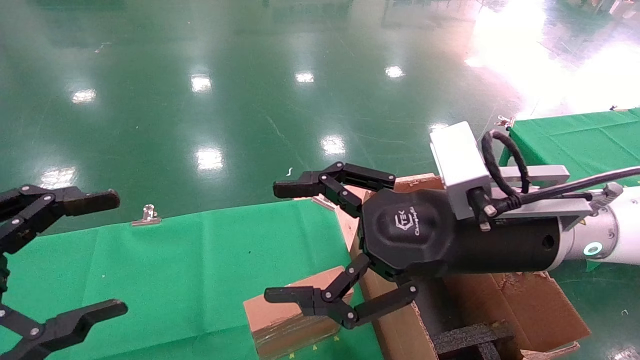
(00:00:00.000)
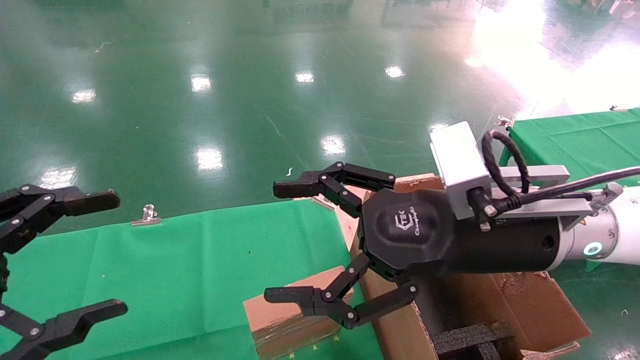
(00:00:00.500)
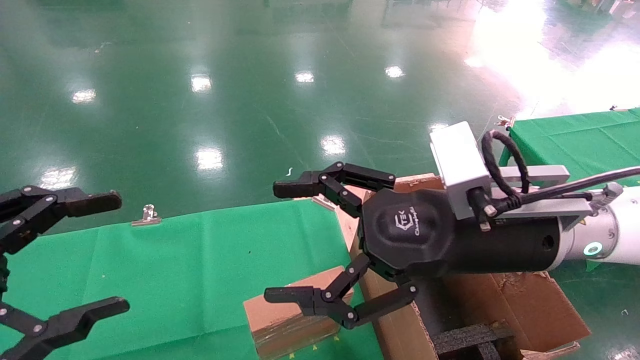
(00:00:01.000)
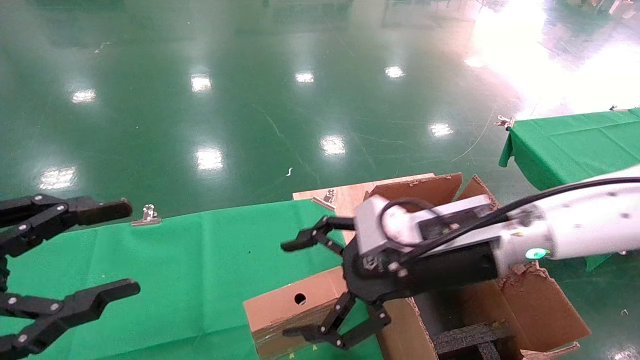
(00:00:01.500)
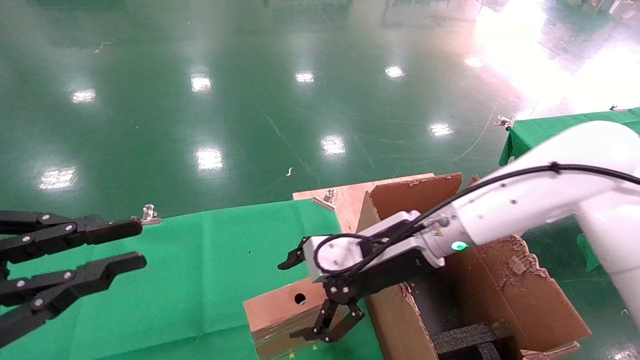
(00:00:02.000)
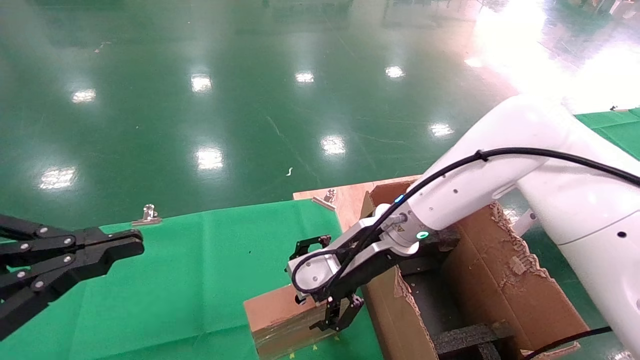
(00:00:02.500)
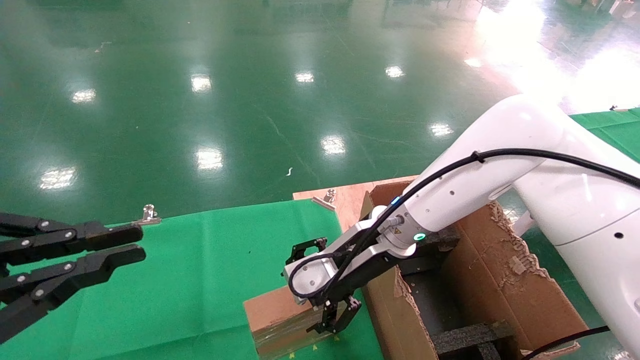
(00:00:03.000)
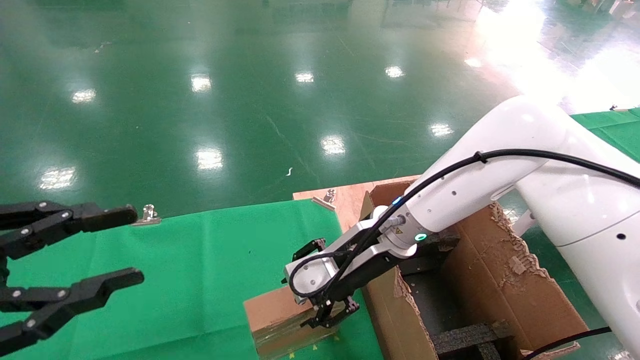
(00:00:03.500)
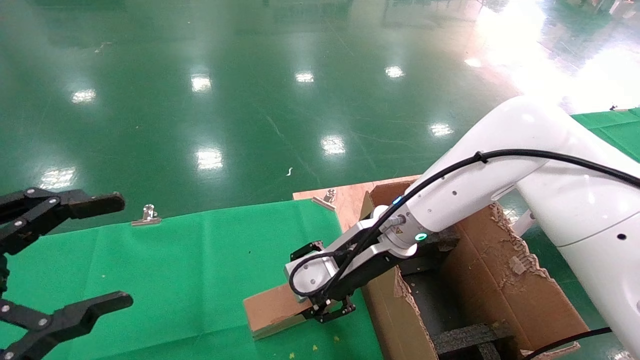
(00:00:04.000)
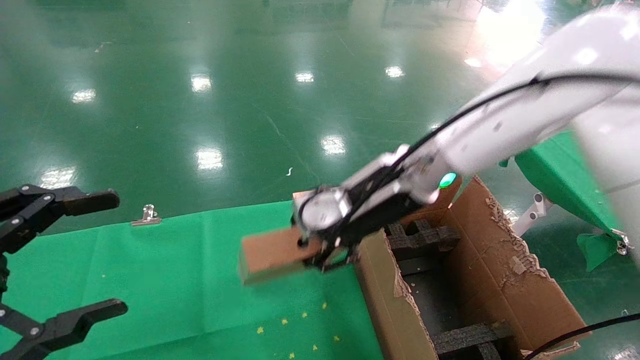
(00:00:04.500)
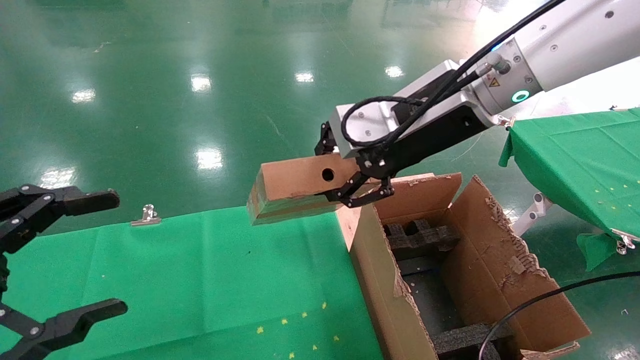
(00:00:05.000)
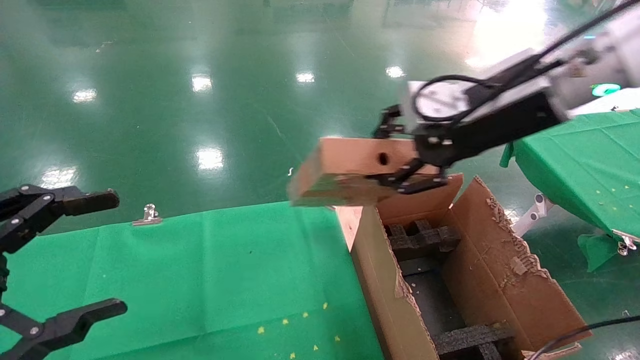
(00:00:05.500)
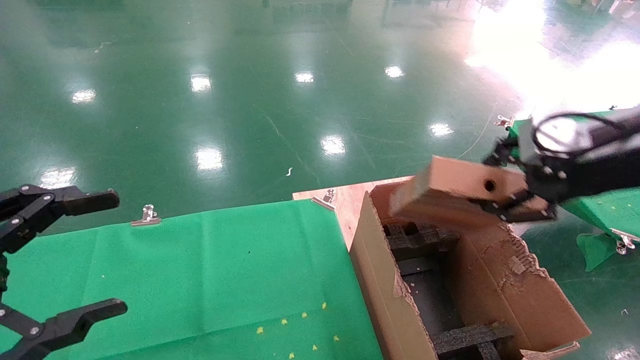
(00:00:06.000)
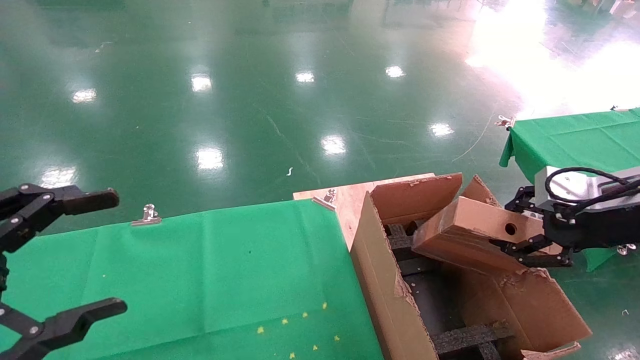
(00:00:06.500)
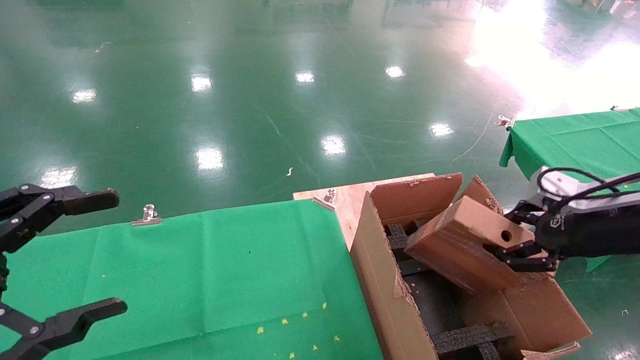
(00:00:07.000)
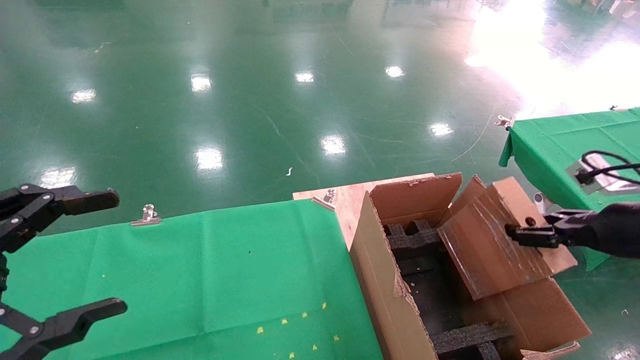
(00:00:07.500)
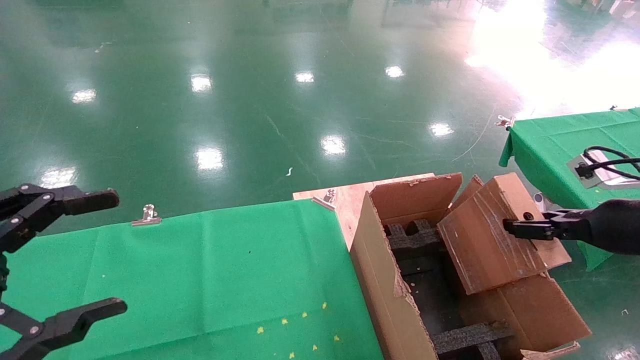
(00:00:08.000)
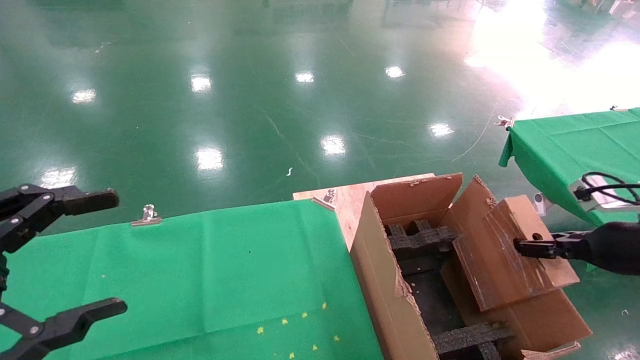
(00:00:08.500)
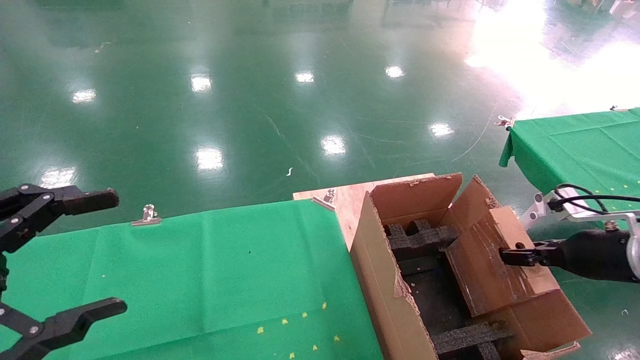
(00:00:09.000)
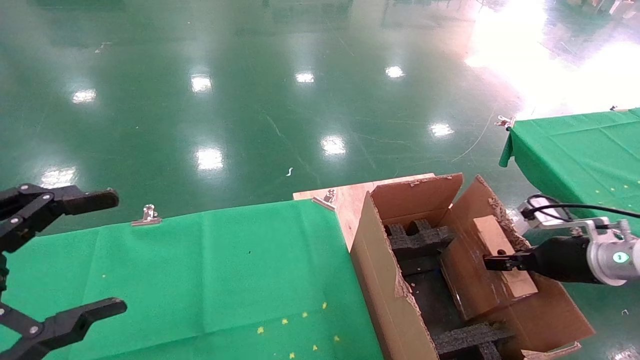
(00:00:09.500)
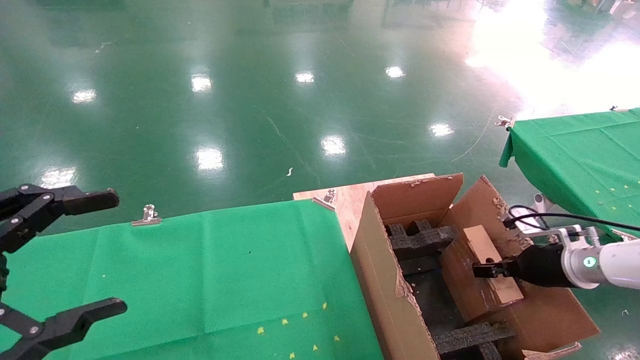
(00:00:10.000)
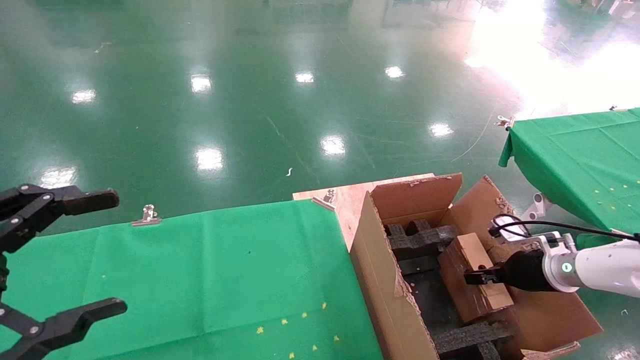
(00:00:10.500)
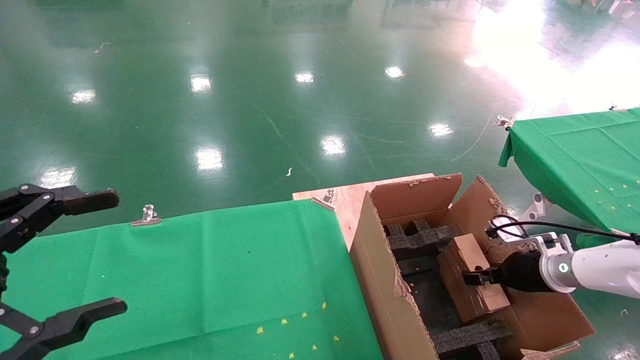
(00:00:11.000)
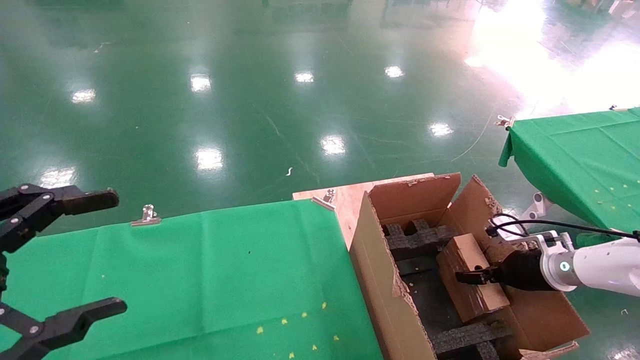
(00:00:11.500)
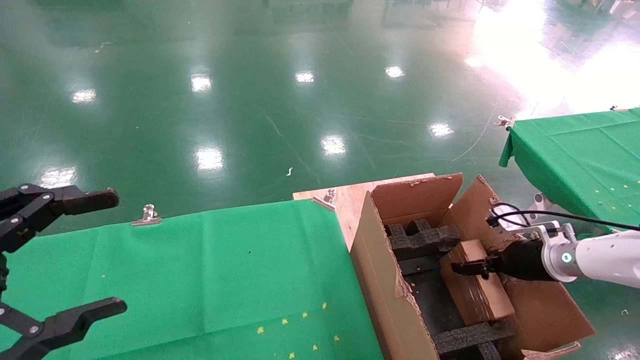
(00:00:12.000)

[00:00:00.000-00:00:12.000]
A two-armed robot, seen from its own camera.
Task of the whole recording: using a robotic arm to pick up a cardboard box and palace it the carton.
Step, 00:00:01.500 to 00:00:03.500: Pick up the mouse and the power cord paper box.
00:00:00.000 to 00:00:02.000: The right gripper heads forward and downward, covering roughly 10 cm, while the left gripper closes.
00:00:02.000 to 00:00:04.000: The left gripper opens. Meanwhile the right gripper closes up.
00:00:04.000 to 00:00:06.000: The right gripper heads to the right, upward and backward, covering approximately 30 cm.
00:00:06.000 to 00:00:08.000: The right gripper travels downward and to the right by roughly 15 cm.
00:00:08.000 to 00:00:10.000: The right gripper is displaced downward and forward by about 15 cm.
00:00:10.000 to 00:00:12.000: The right gripper opens.

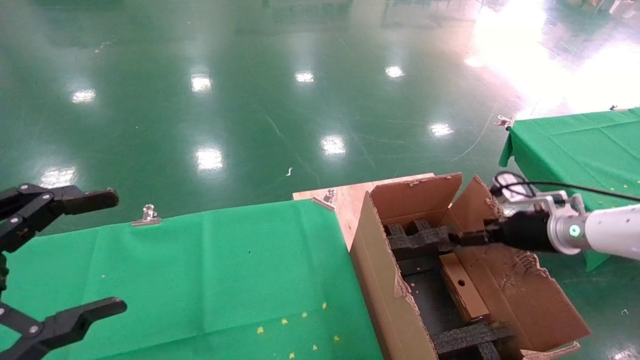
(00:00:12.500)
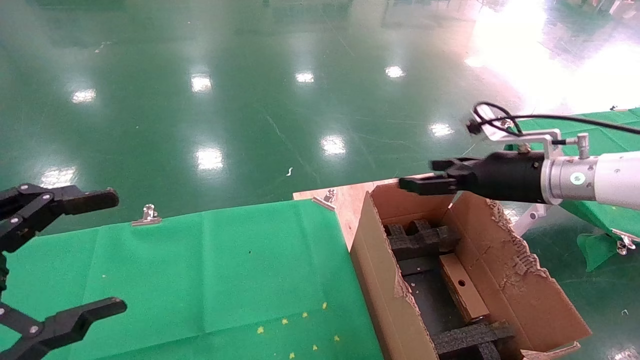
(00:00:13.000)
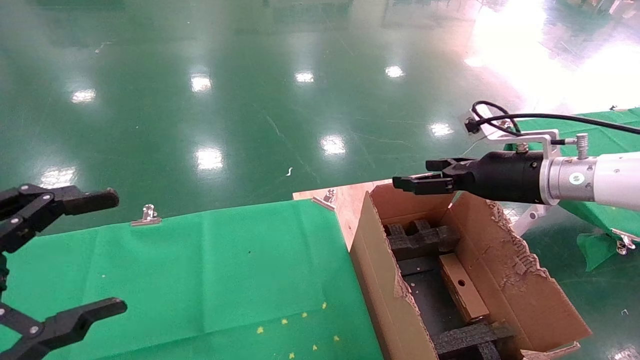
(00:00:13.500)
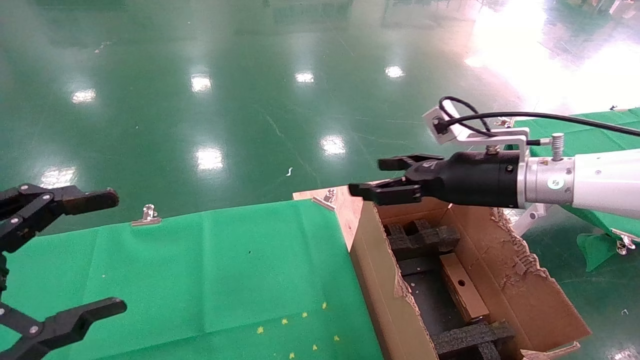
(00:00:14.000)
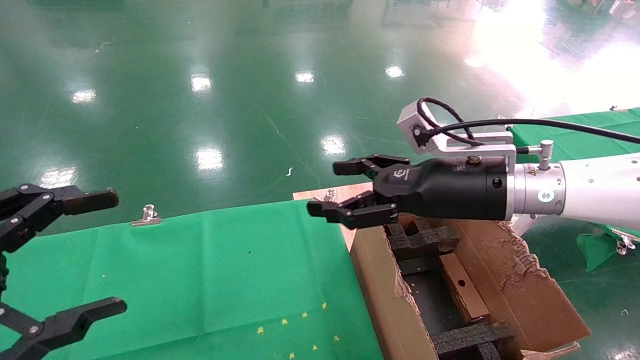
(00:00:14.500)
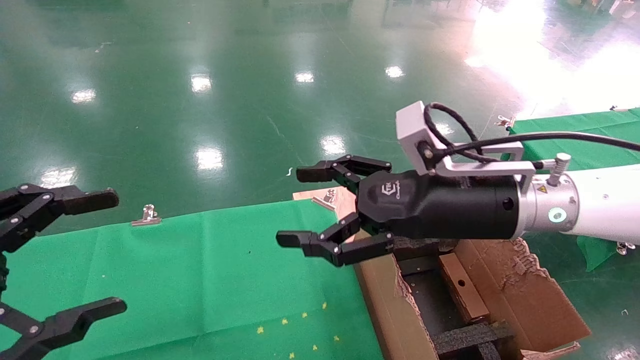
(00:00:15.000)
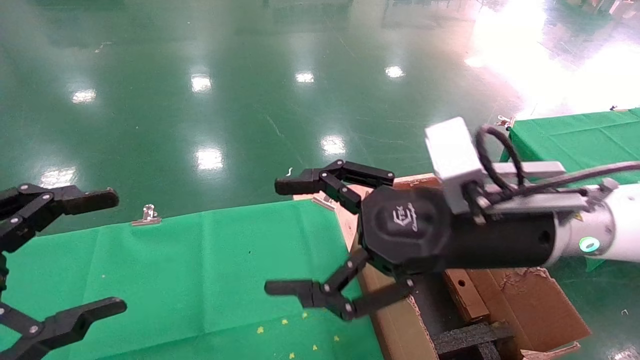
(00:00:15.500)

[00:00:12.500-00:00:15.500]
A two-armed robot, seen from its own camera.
Task of the whole recording: using a robotic arm to pick up a cardboard box and palace it the carton.
00:00:12.500 to 00:00:14.000: The right gripper goes approximately 20 cm to the left and upward.
00:00:14.000 to 00:00:15.500: The right gripper is displaced backward and to the left by roughly 15 cm.
